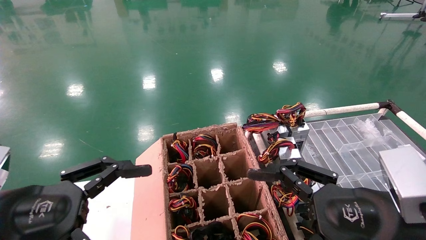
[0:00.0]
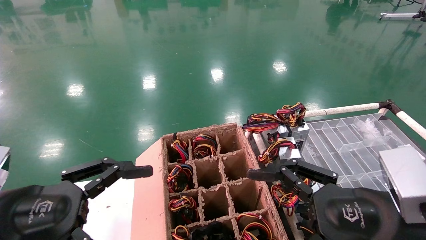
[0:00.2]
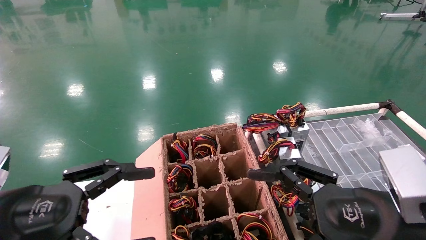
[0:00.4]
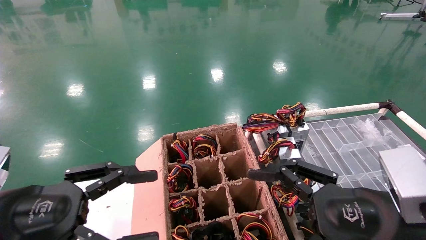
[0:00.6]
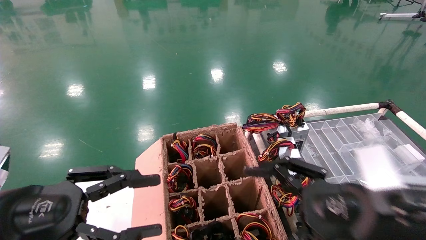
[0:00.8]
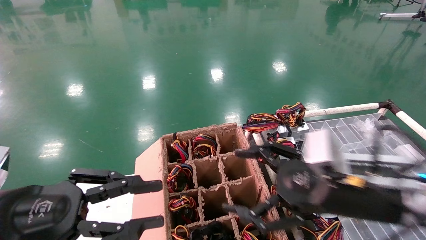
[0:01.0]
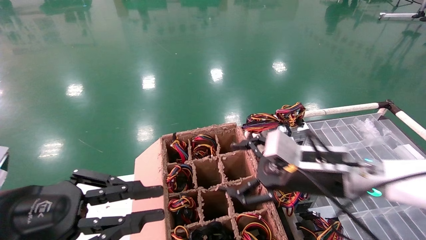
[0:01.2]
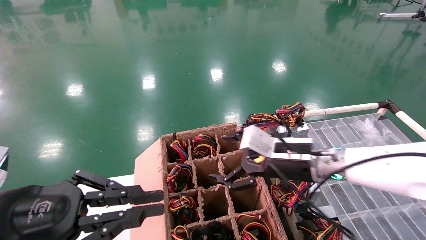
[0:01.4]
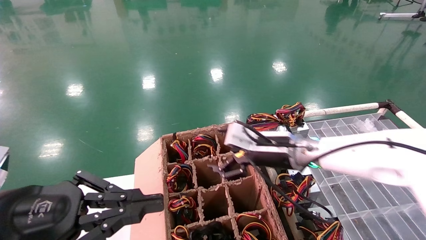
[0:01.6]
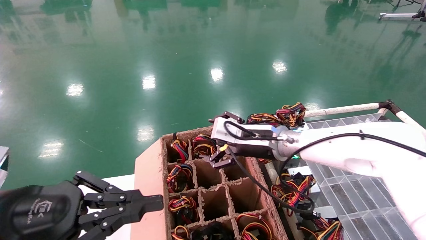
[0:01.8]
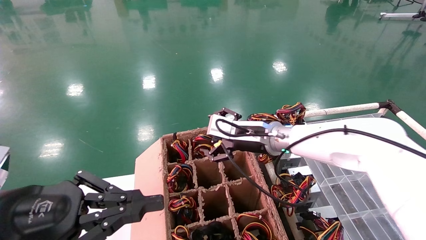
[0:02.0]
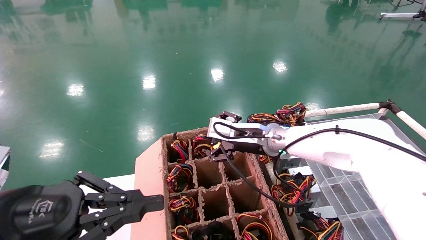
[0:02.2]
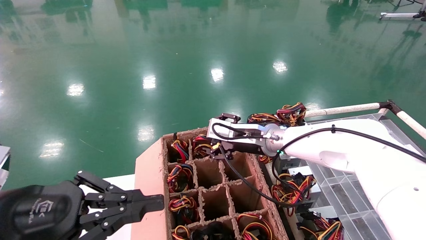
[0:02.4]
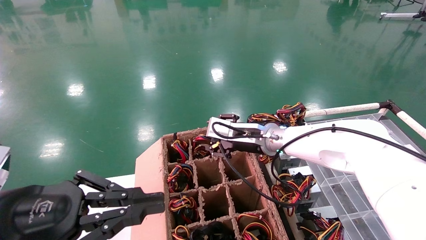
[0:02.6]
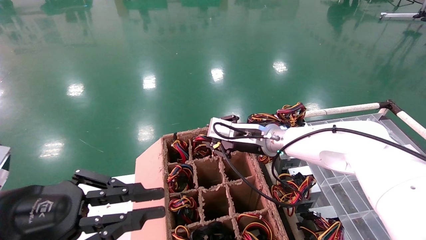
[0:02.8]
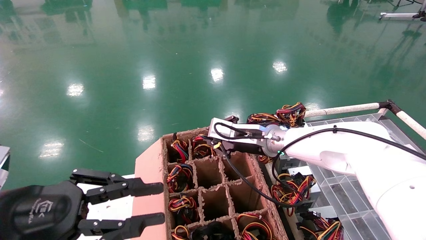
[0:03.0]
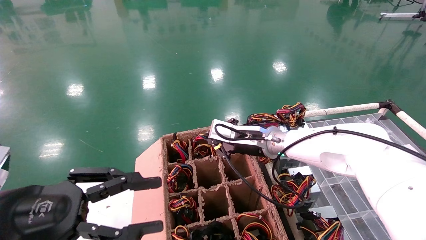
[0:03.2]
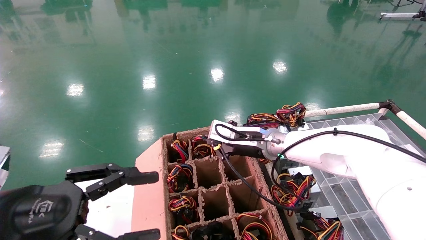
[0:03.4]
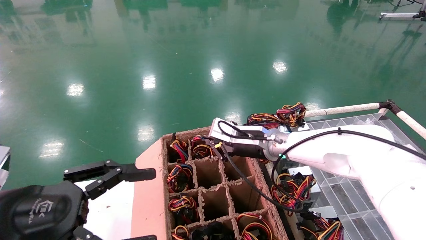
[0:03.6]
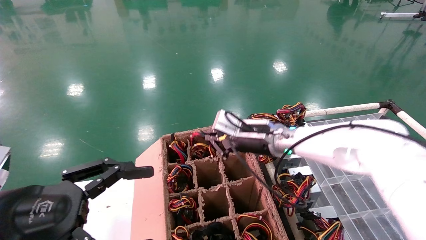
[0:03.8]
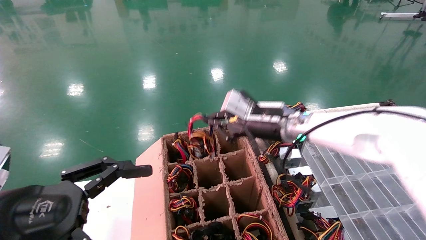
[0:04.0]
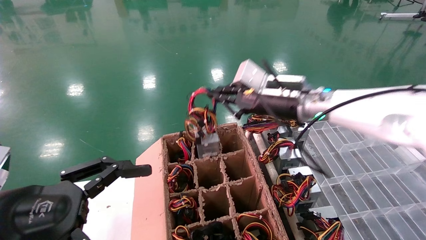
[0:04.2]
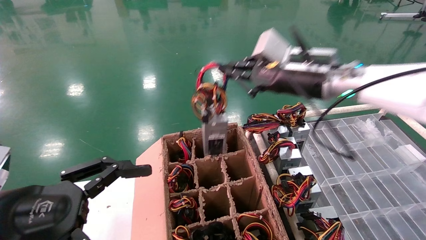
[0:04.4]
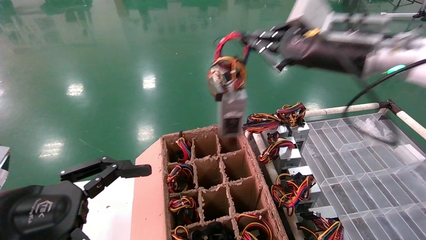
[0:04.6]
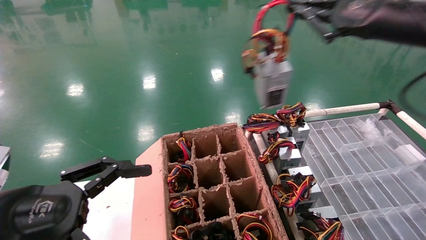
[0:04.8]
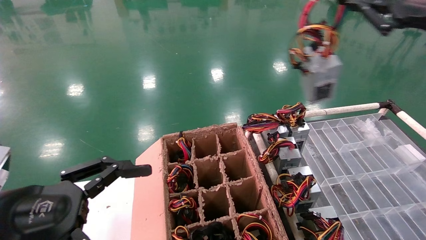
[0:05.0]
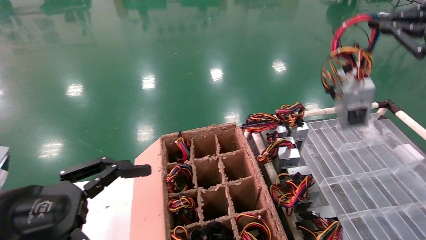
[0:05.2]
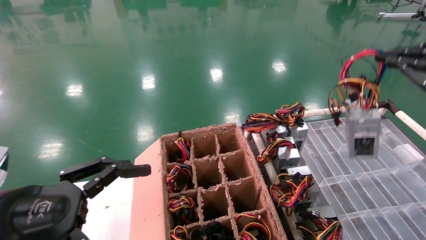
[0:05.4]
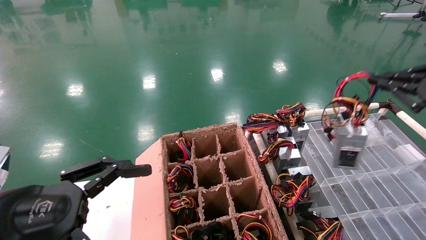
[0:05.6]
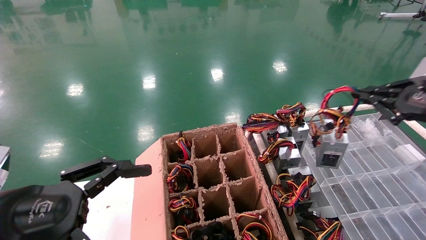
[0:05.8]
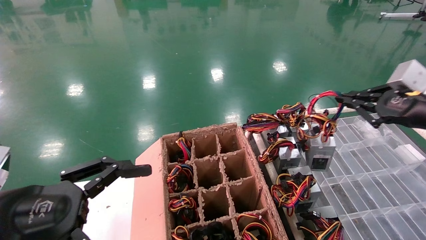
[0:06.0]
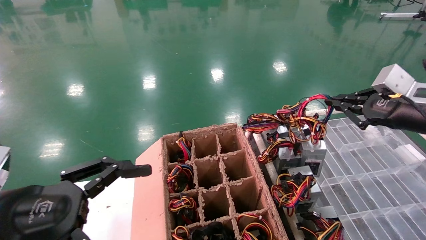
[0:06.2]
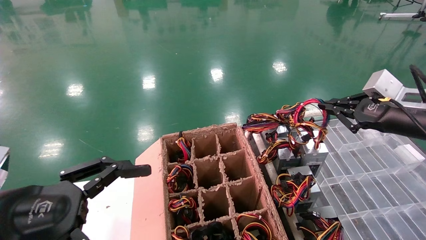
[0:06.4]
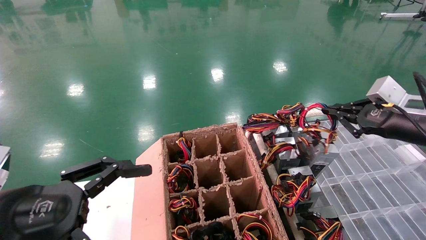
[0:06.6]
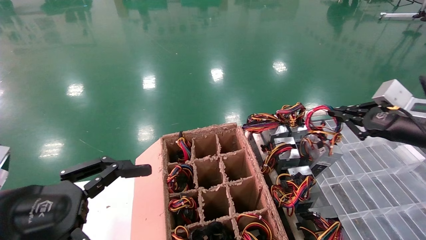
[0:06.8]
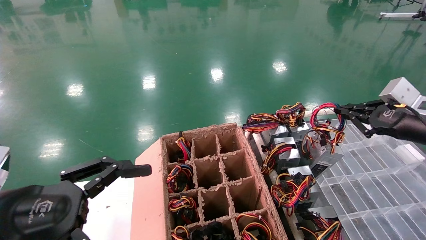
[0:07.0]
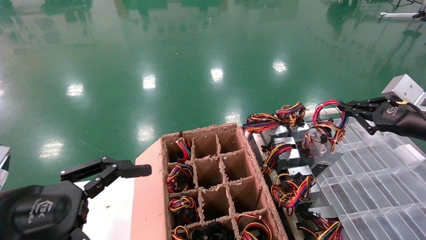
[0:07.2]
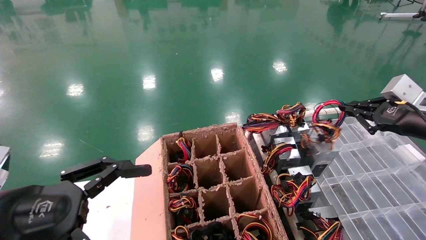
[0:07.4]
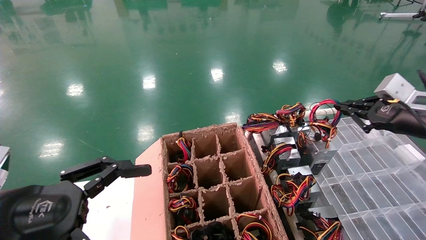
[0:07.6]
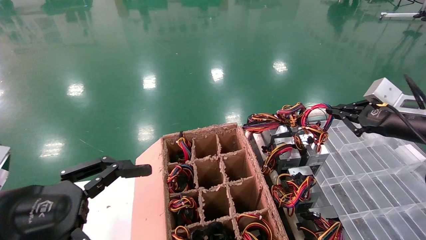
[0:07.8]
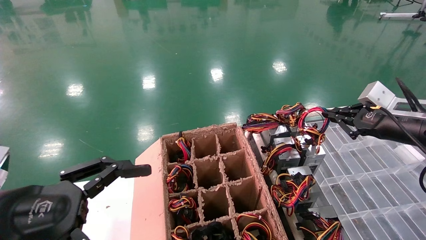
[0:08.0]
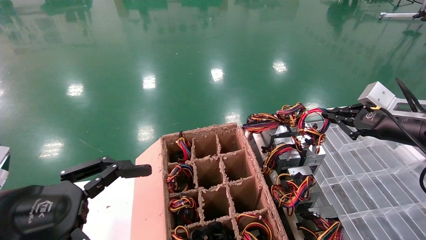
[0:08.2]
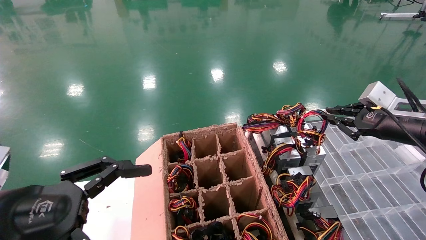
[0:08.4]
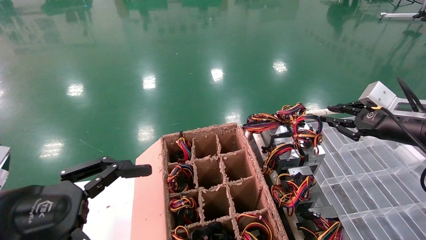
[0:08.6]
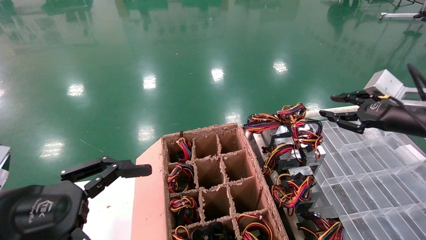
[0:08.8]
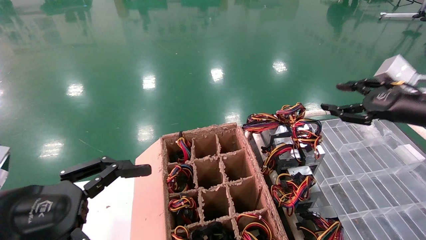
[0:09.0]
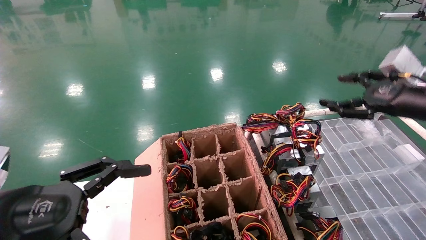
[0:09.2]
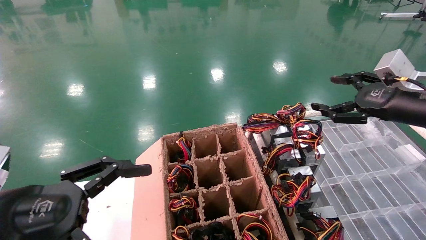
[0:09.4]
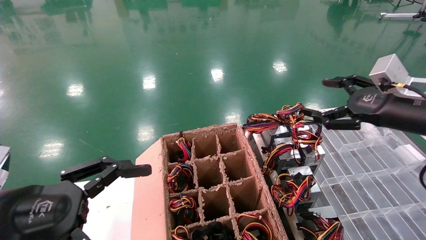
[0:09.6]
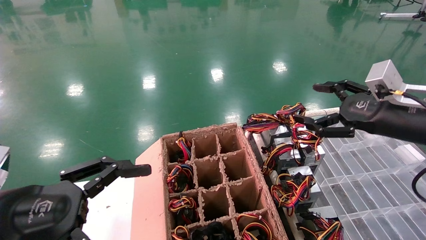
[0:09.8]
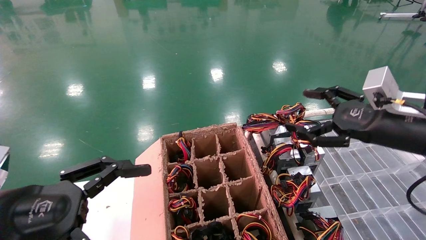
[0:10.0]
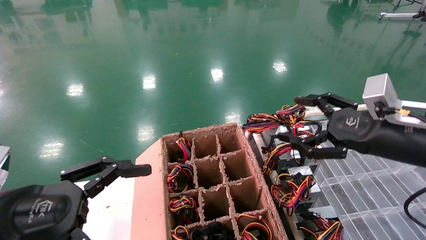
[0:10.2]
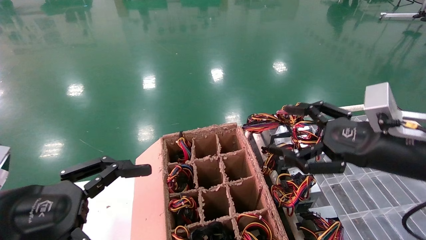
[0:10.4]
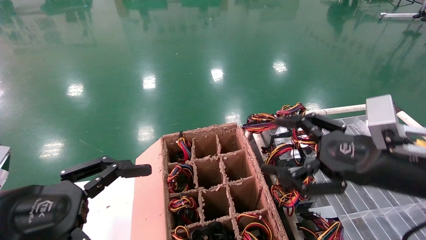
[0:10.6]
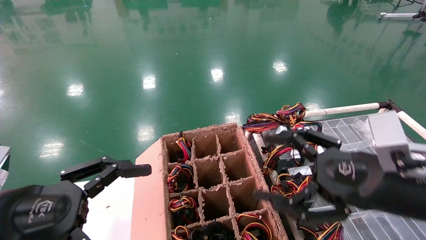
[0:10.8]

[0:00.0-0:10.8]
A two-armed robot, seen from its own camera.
Step, 0:01.8 to 0:03.8: Grab and lift the power supply from the large box.
Step, 0:04.0 to 0:08.2: Place the power supply on the operating table.
0:00.0 to 0:01.6: The left gripper closes its fingers, while the right gripper goes some 25 cm forward and to the left.
0:01.6 to 0:03.0: The right gripper moves forward, some 5 cm, and closes.
0:03.0 to 0:04.6: The left gripper opens up, while the right gripper is displaced upward, to the right and backward by some 25 cm.
0:04.6 to 0:06.2: The right gripper shifts roughly 20 cm to the right and downward.
0:06.2 to 0:07.8: The grippers stay close to where they were, moving slightly.
0:07.8 to 0:09.2: The right gripper opens.
0:09.2 to 0:10.8: The right gripper moves to the left, backward and downward, some 15 cm.
